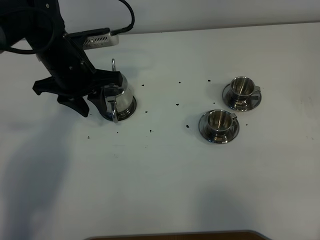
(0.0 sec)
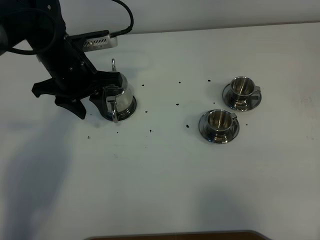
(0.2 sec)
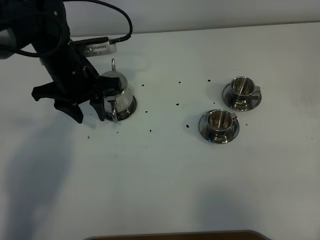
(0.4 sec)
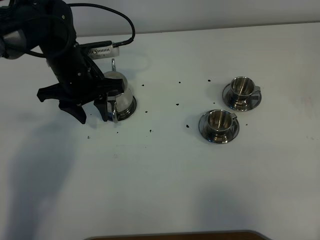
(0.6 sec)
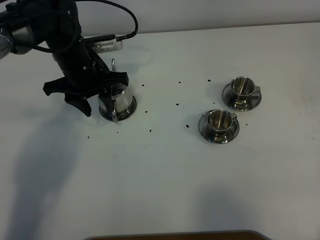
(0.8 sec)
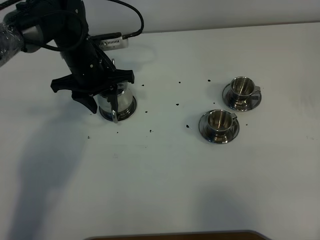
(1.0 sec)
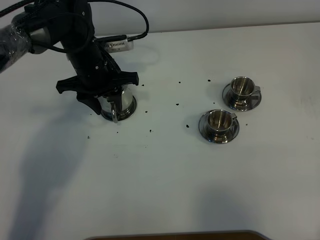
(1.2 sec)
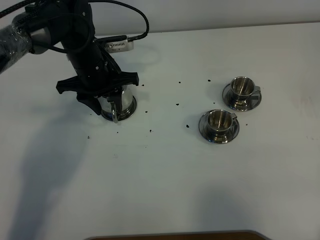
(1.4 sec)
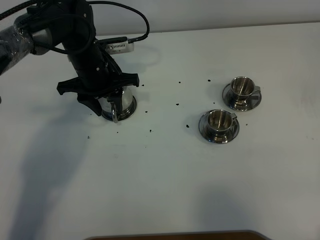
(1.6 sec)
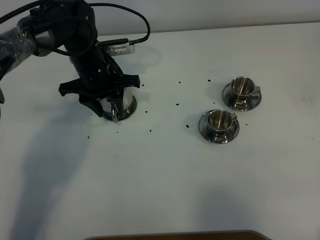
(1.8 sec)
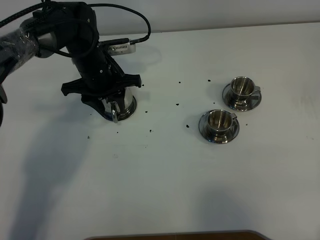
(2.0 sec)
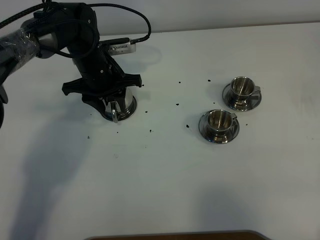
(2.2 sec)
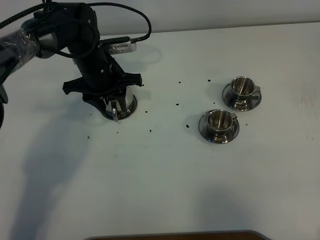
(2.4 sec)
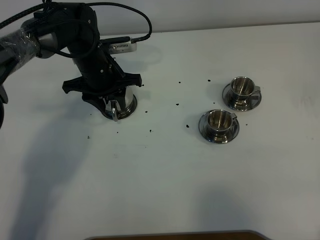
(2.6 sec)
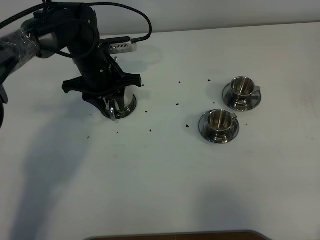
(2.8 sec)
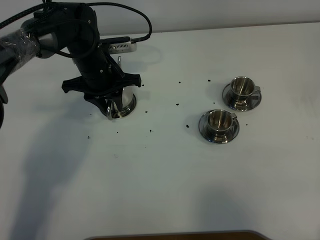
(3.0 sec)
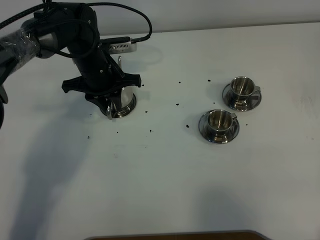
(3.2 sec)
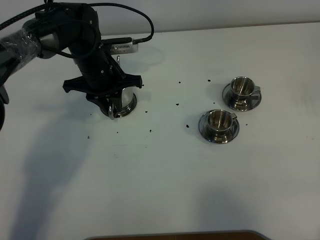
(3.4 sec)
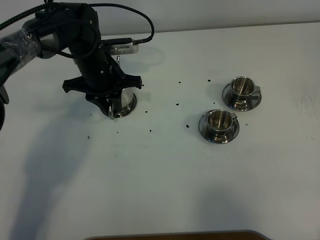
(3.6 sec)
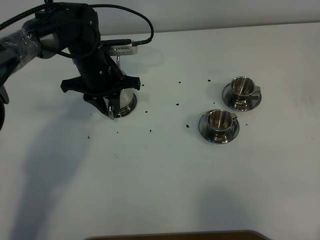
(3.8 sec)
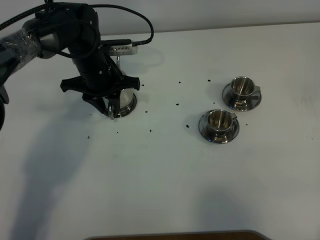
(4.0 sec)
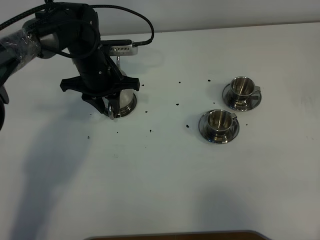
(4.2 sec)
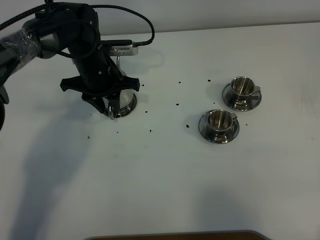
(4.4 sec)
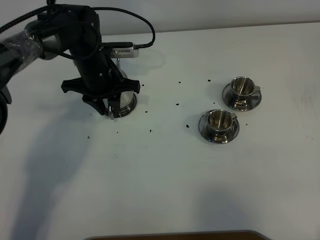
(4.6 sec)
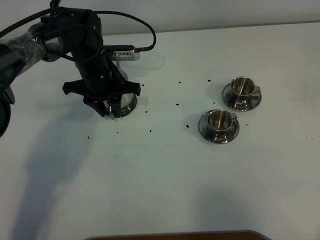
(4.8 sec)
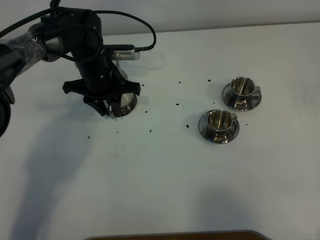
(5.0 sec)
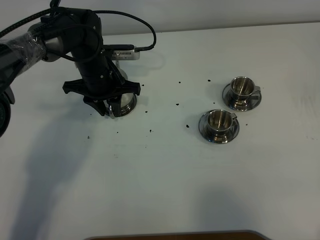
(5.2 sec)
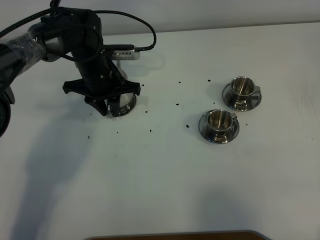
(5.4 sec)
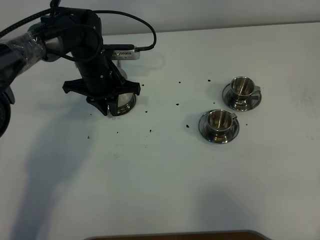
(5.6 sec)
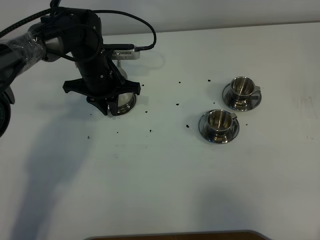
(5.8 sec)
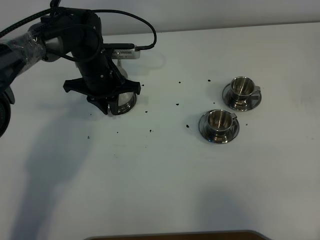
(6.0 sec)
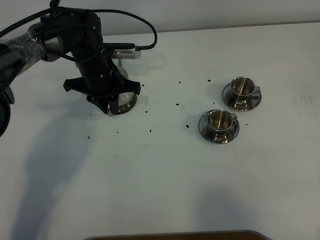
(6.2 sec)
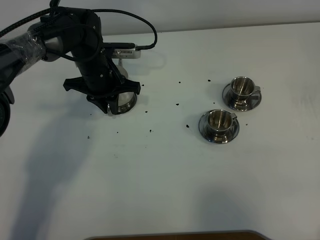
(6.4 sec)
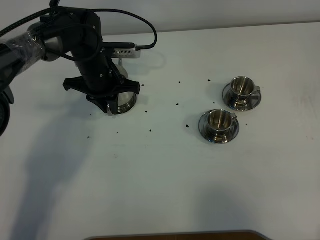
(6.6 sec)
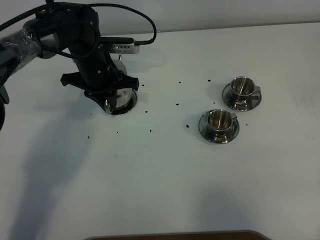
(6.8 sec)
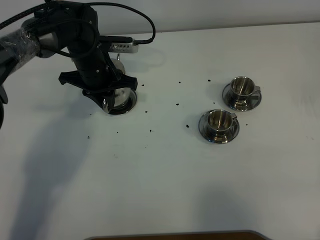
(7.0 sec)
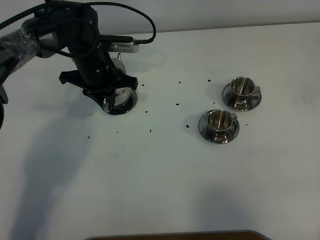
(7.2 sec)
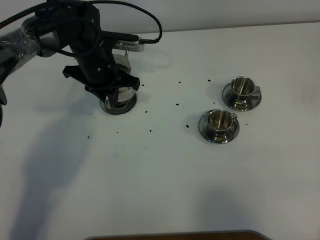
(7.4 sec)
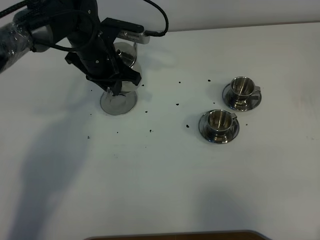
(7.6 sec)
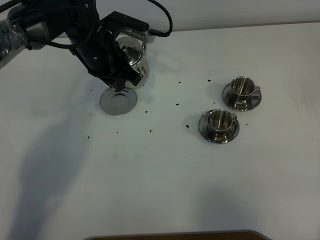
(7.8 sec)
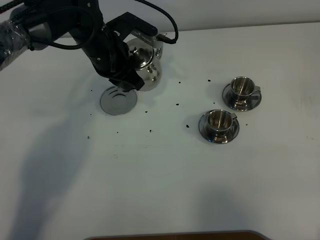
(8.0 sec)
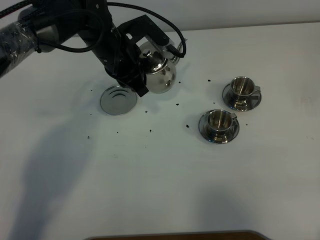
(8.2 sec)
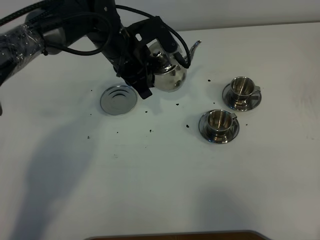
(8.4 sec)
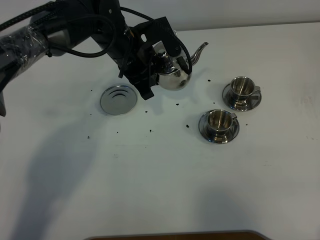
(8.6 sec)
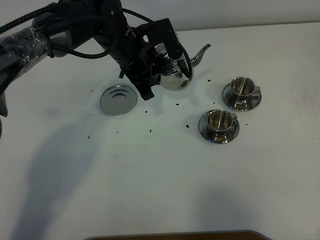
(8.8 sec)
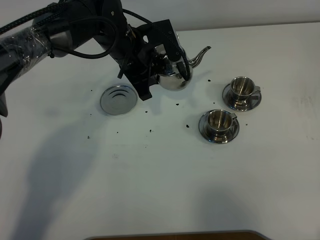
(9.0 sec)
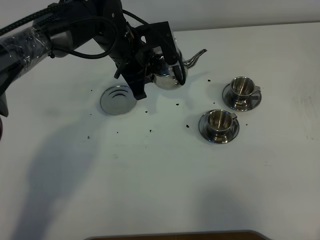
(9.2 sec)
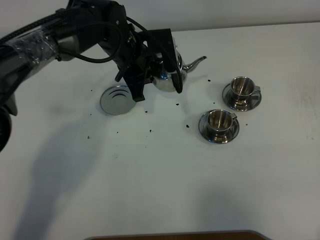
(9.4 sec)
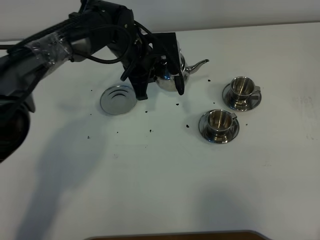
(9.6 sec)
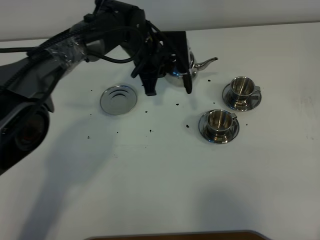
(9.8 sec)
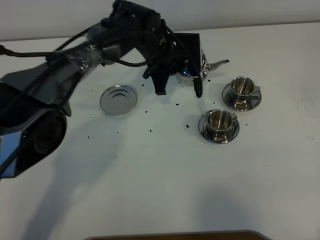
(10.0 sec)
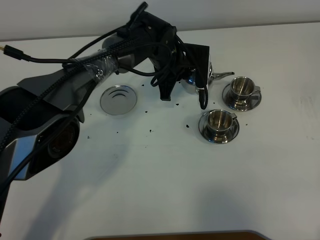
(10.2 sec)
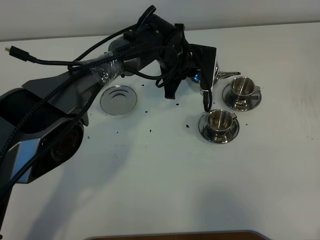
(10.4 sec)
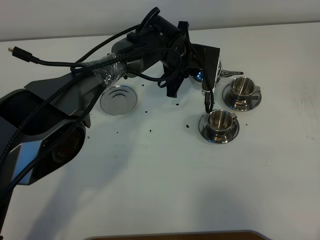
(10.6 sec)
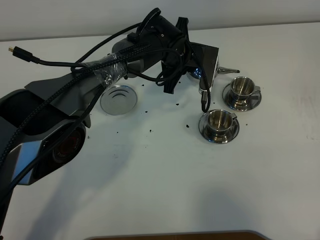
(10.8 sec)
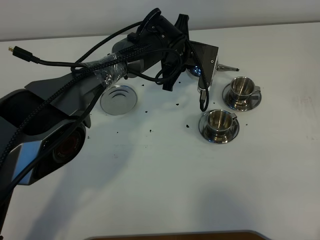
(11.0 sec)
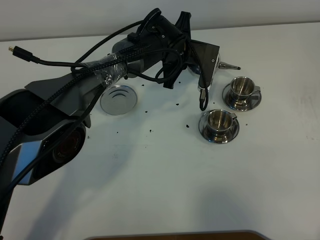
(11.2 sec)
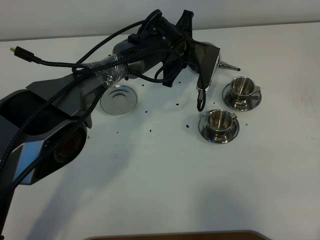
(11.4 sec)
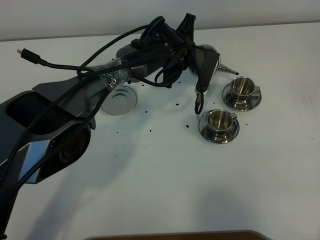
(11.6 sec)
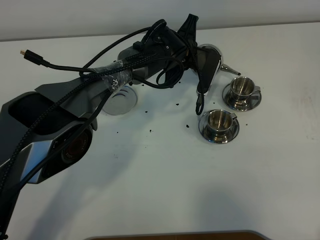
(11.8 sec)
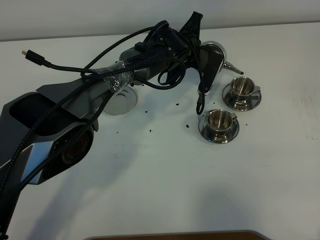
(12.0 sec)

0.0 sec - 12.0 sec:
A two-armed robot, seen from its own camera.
Task of the whole recording: grasp the stainless steel teapot and pour the tea into the two stainless steel teacups one by one, put the stainless steel teapot back in its original place.
Step, 0.0 sec - 7.0 sec: Pick up the teapot with the left gripper.
0.0 sec - 1.6 sec: The left gripper shifts roughly 5 cm downward.
1.6 sec - 3.0 sec: The left gripper closes up.
3.0 sec - 4.4 sec: The two grippers keep their place.
4.4 sec - 6.0 sec: The left gripper closes its fingers.
6.0 sec - 7.6 sec: The left gripper heads upward, covering about 5 cm.
7.6 sec - 9.0 sec: The left gripper moves to the right, about 5 cm.
9.0 sec - 10.4 sec: The left gripper is displaced to the right and downward by approximately 10 cm.

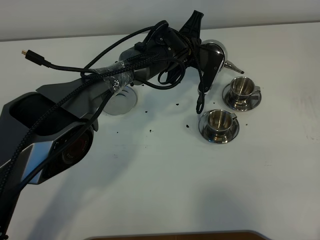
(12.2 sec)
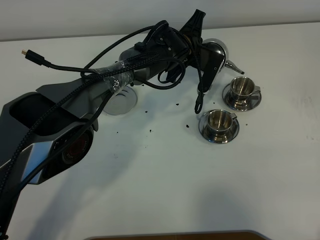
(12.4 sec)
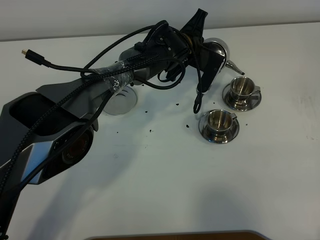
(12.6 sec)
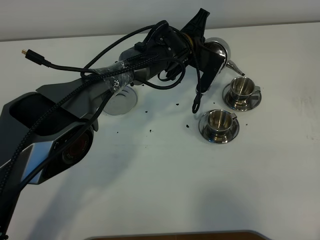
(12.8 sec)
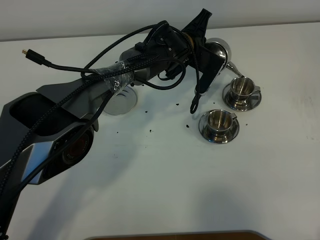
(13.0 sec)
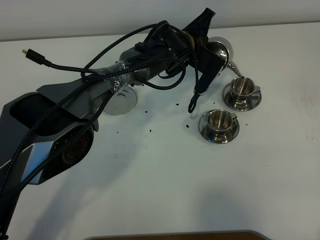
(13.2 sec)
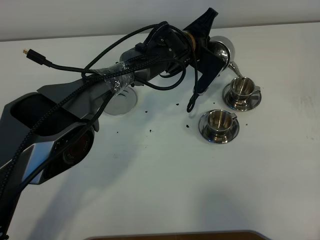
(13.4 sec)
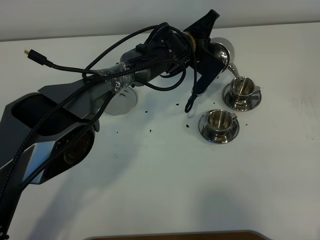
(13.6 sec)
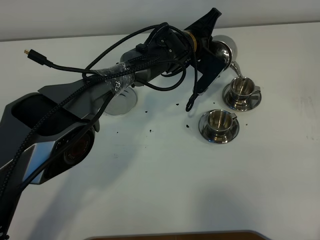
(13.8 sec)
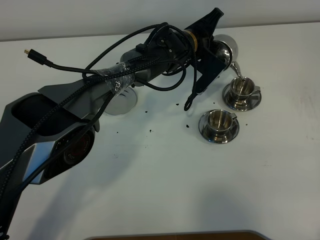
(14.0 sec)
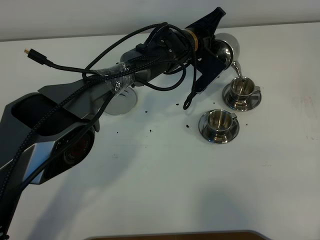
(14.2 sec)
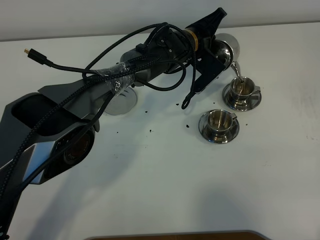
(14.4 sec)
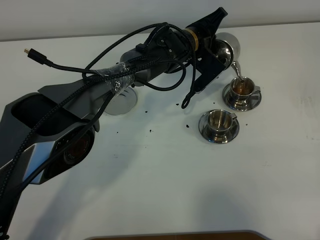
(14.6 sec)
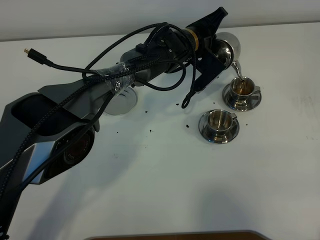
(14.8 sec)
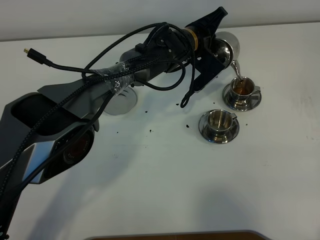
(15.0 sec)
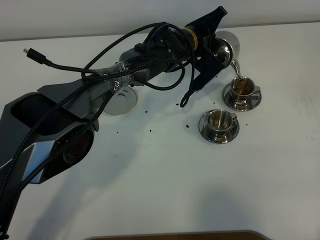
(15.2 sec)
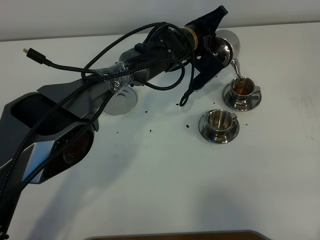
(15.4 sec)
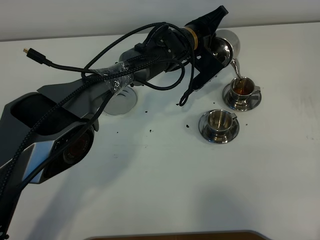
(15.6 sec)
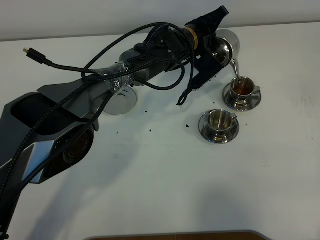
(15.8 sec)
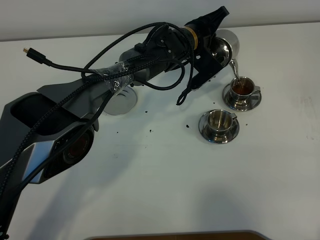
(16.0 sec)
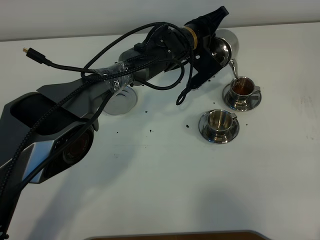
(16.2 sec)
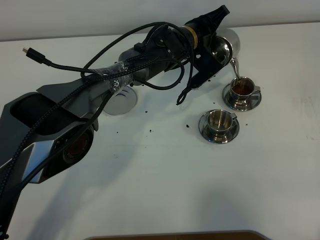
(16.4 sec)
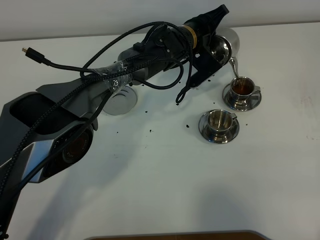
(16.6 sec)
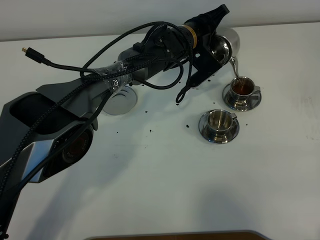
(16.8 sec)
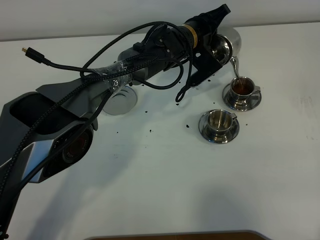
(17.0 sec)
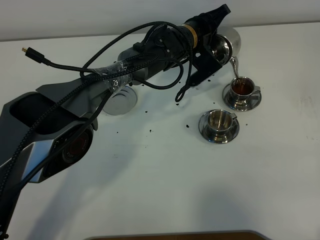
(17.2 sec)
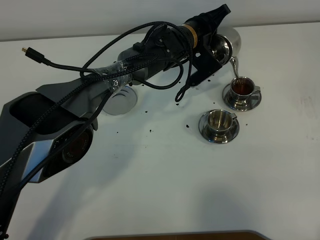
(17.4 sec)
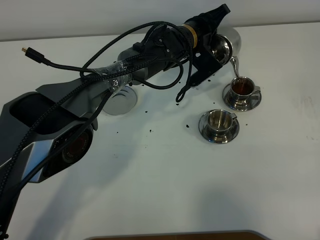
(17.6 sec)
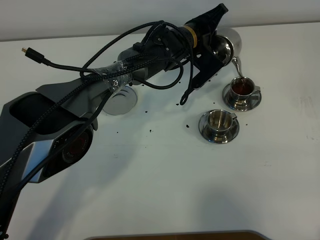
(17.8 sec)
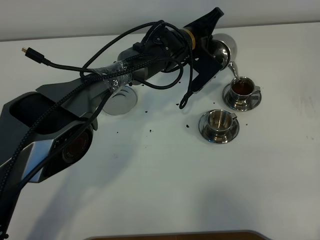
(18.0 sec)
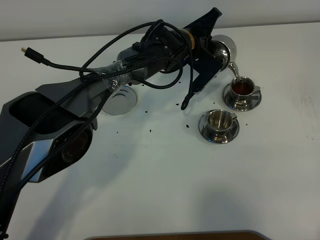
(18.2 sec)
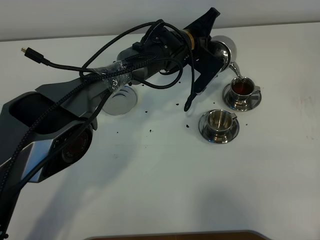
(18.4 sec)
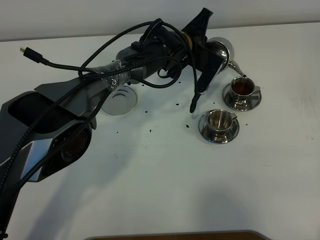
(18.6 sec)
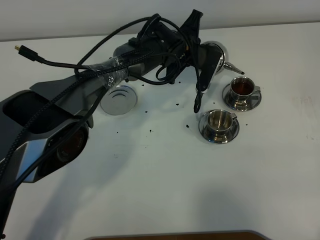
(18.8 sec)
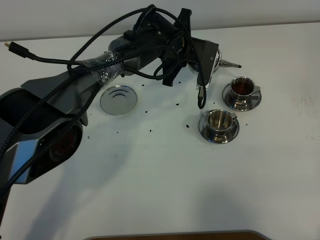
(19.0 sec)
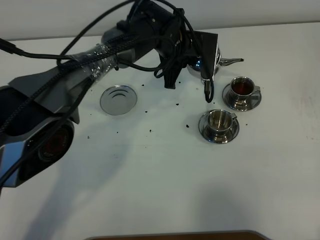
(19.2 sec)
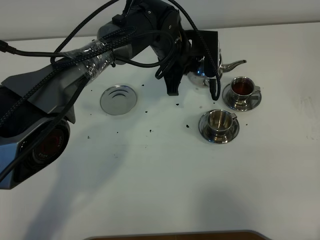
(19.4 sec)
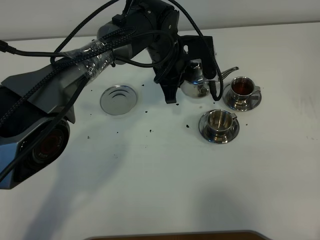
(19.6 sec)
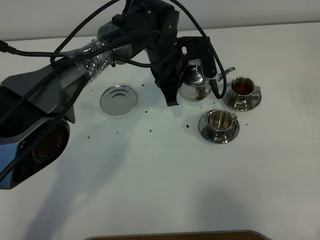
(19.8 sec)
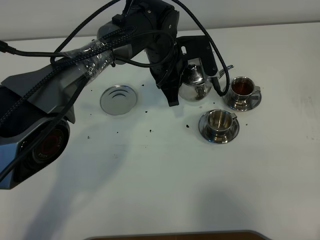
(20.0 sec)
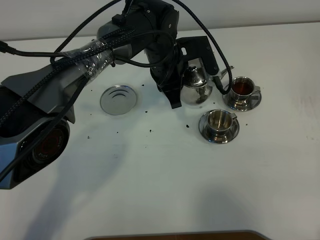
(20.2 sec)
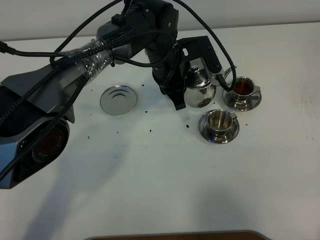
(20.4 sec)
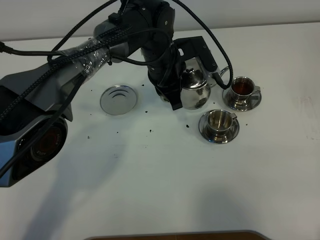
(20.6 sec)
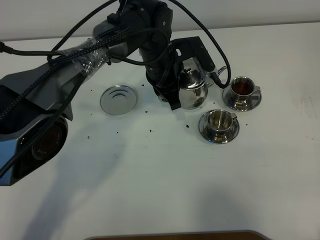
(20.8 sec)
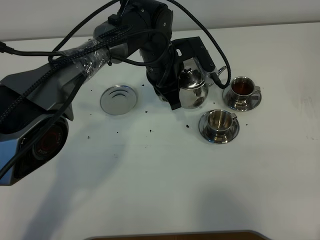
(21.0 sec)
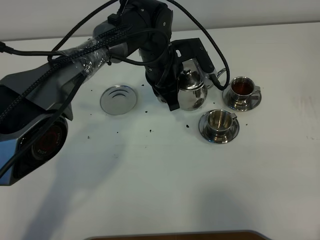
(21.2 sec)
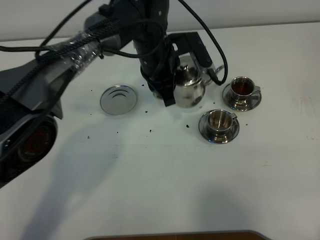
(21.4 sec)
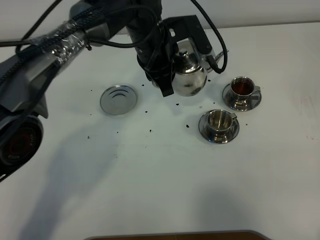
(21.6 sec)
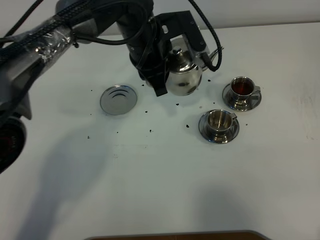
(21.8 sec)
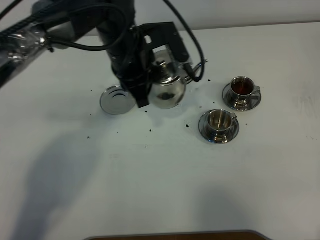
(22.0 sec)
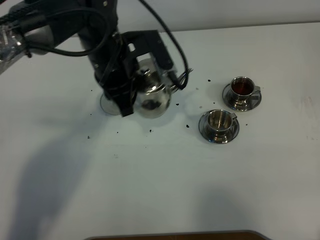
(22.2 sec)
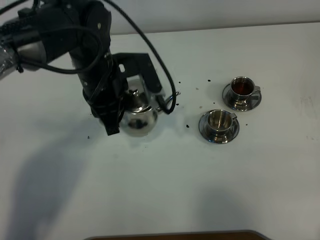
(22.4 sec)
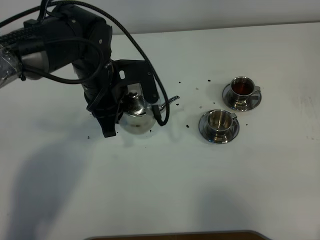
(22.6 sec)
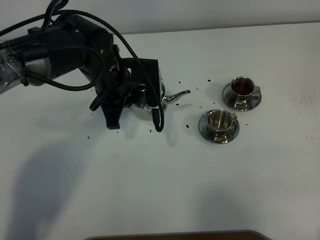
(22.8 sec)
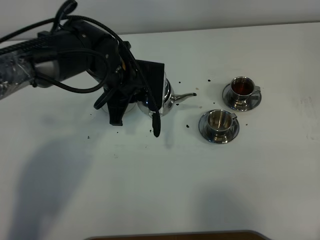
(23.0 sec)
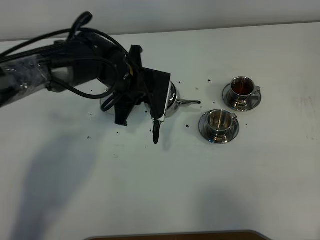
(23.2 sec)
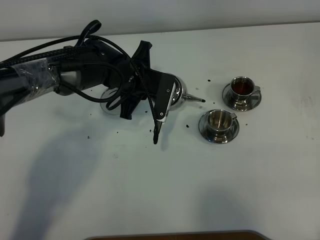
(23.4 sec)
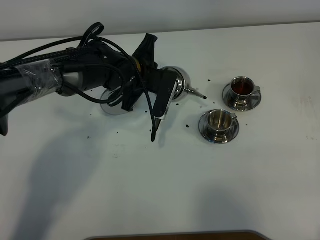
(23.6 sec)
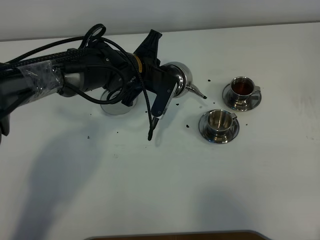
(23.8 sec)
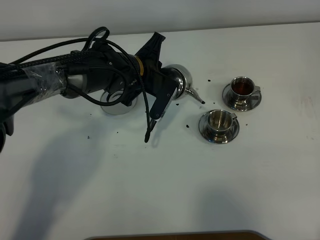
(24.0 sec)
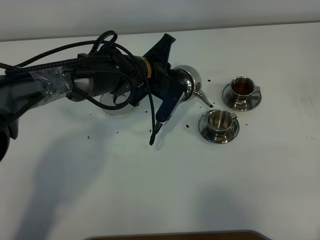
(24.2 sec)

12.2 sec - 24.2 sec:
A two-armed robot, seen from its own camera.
Task of the whole recording: grasp the stainless steel teapot and pour the tea into the two stainless steel teacups one by one, put the stainless steel teapot back in its original place.
13.8 sec - 18.2 sec: There are only small adjustments of the grippers.
18.2 sec - 19.8 sec: The left gripper moves backward, some 5 cm.
19.8 sec - 21.2 sec: The grippers stay close to where they were, moving slightly.
21.2 sec - 22.6 sec: The left gripper is displaced to the left and backward by about 10 cm.
22.6 sec - 24.2 sec: The left gripper moves to the right, downward and forward, approximately 10 cm.
